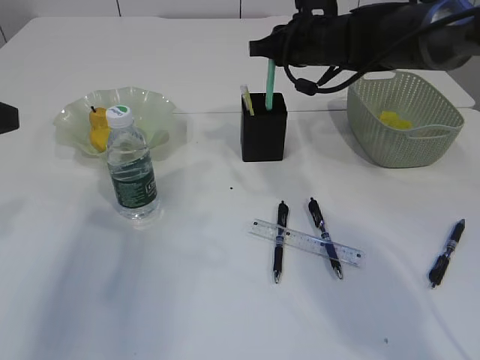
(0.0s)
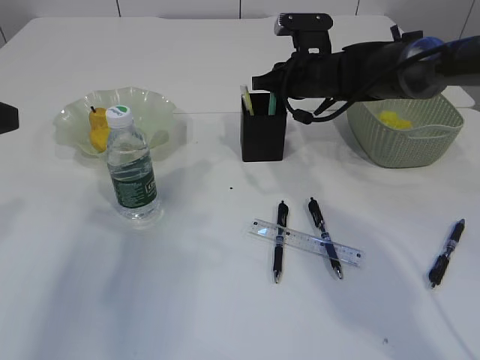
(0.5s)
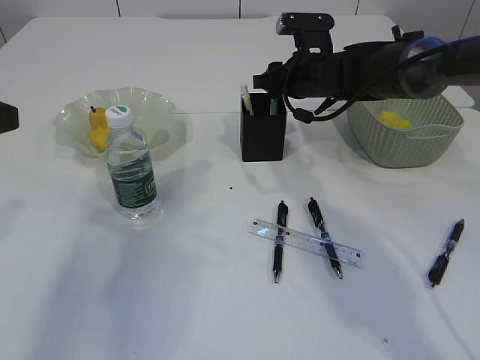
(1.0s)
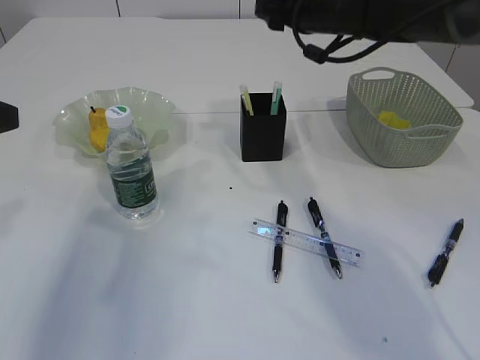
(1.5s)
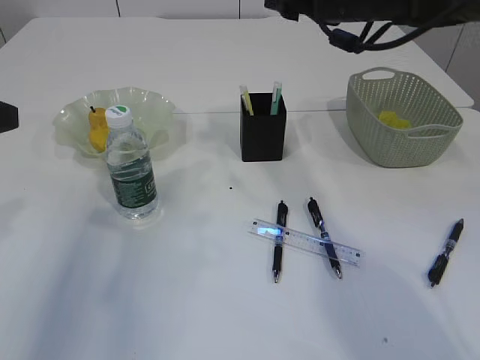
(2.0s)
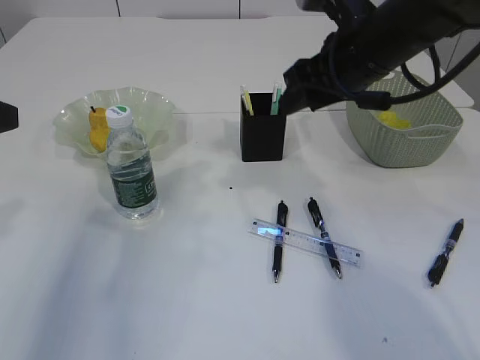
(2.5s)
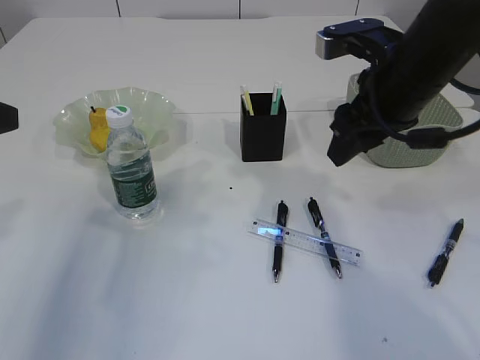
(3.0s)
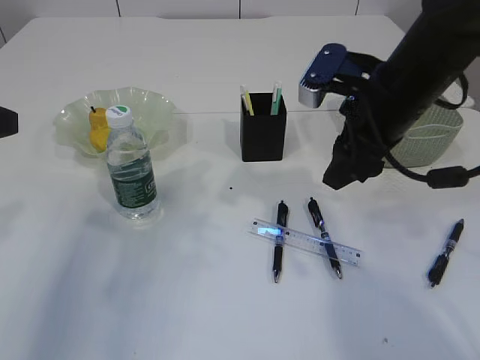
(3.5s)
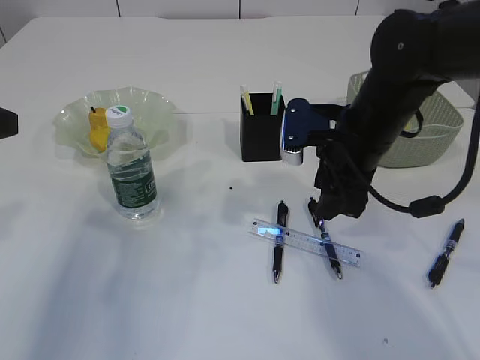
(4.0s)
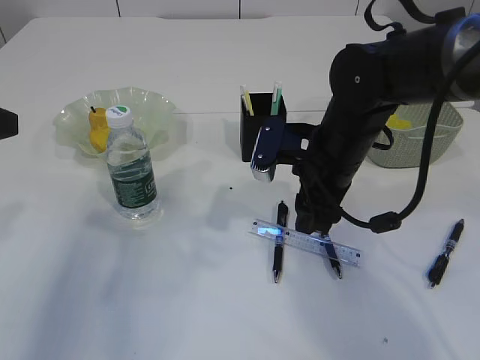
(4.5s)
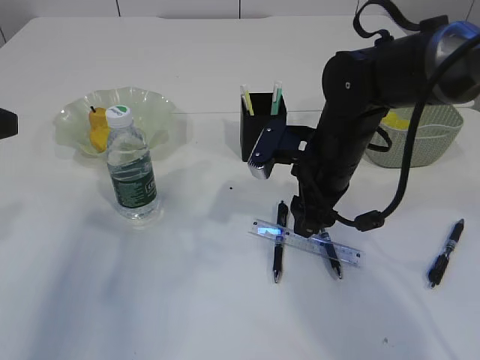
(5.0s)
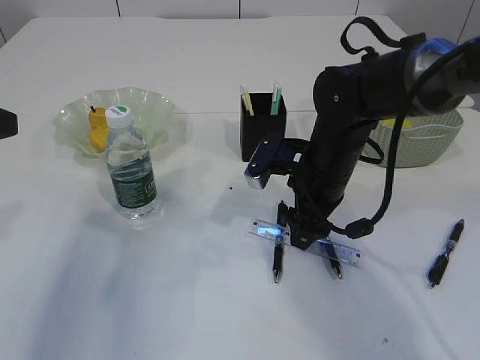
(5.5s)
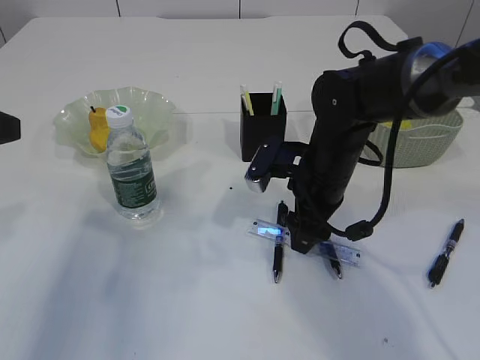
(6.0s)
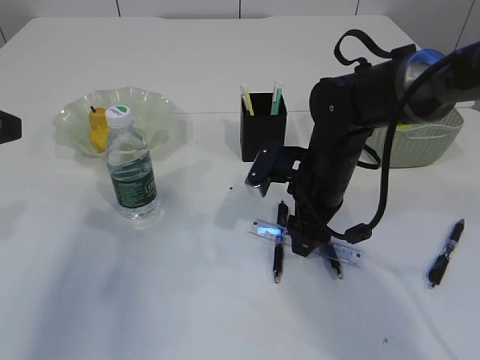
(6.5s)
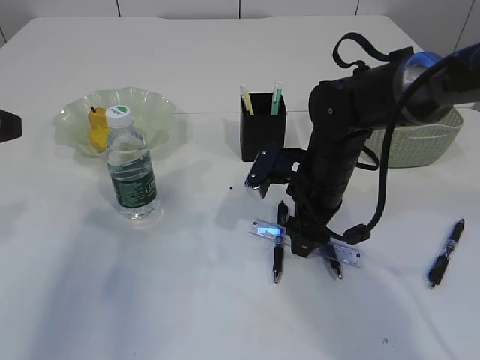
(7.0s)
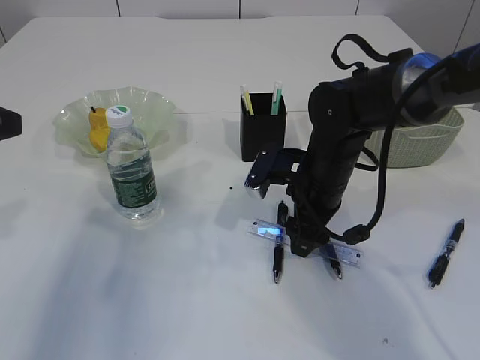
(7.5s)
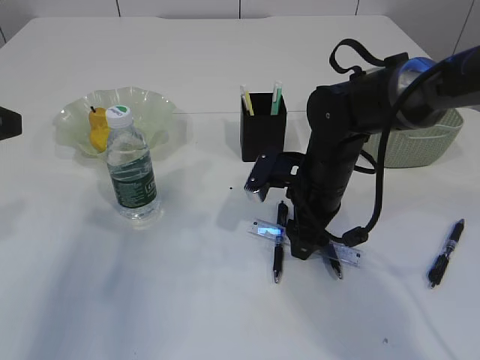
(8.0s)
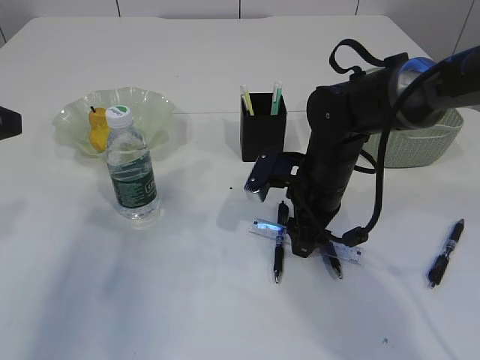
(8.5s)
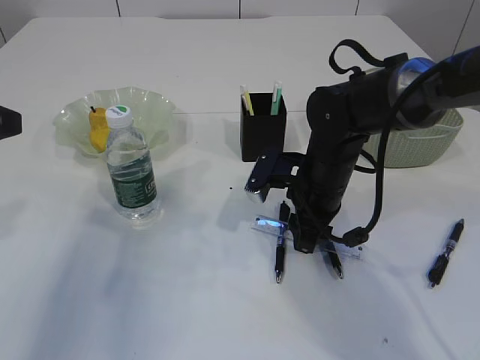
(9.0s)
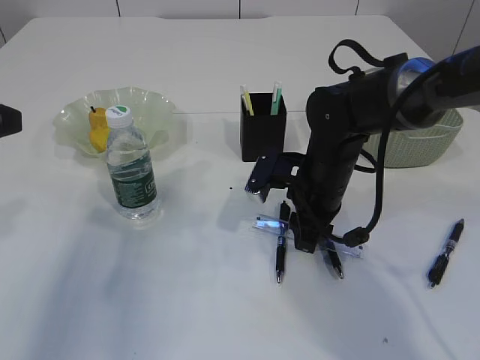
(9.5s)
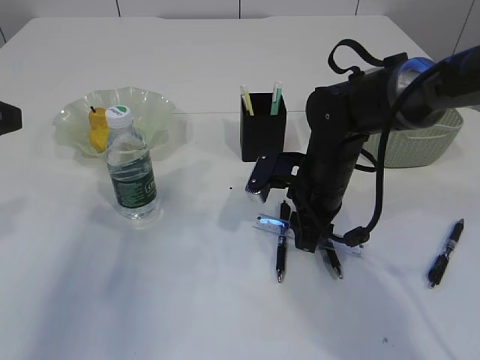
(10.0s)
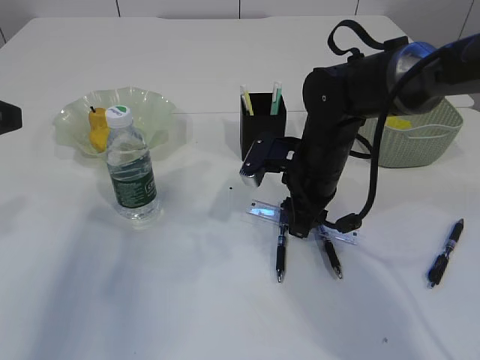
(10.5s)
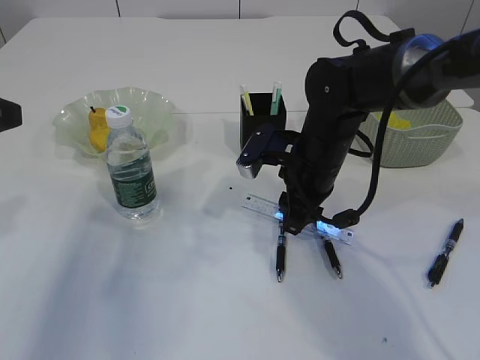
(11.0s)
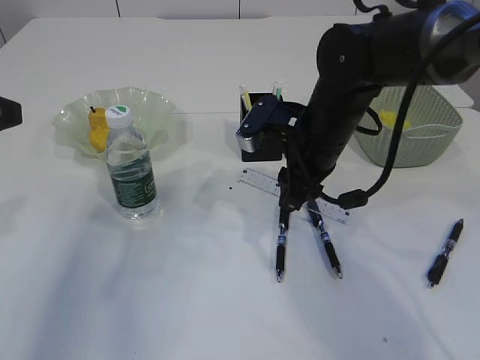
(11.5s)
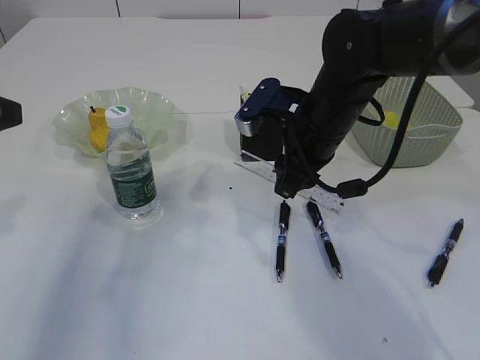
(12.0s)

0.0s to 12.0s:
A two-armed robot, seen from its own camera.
Step, 1.5s to 10.5s: pick up the ruler.
0.0s to 2.0s: The right gripper moves upward and backward, about 10 cm, and opens.
2.0s to 4.0s: The right gripper travels downward and backward by approximately 15 cm.
4.0s to 6.0s: The right gripper goes about 5 cm downward.
6.0s to 8.0s: The grippers make only small movements.
8.0s to 10.0s: The right gripper closes up.
10.0s to 12.0s: The right gripper heads upward, covering some 10 cm.

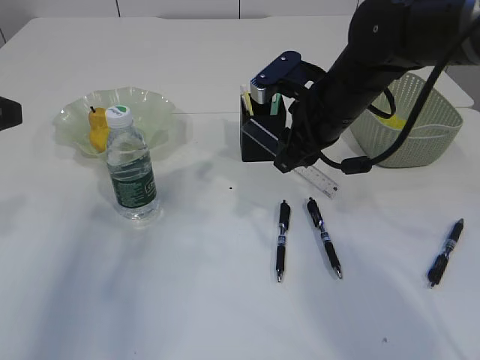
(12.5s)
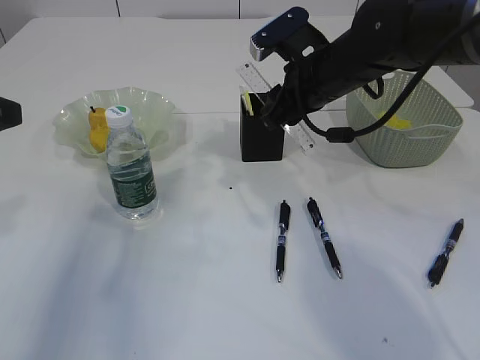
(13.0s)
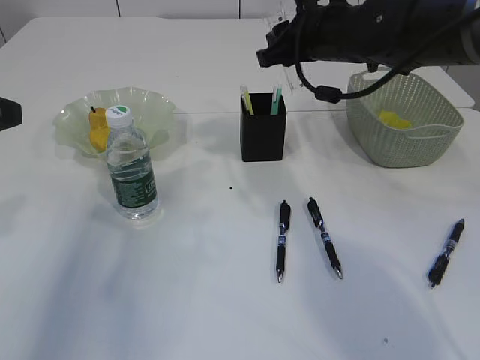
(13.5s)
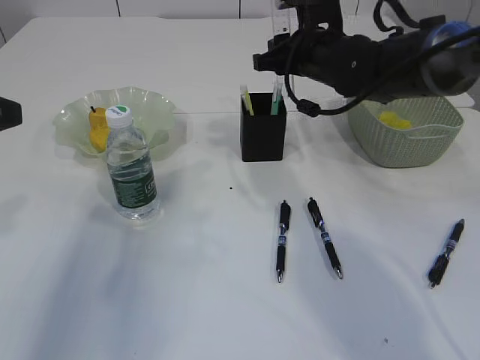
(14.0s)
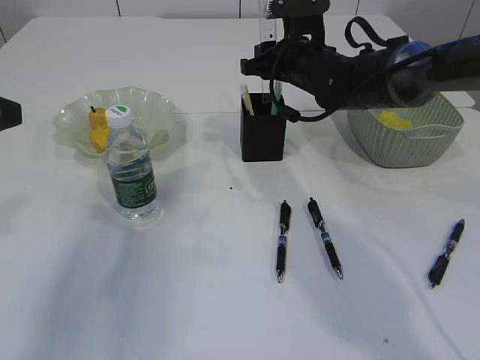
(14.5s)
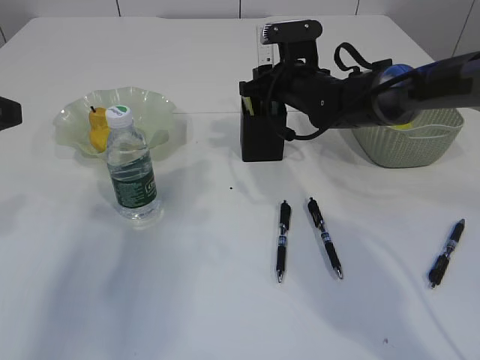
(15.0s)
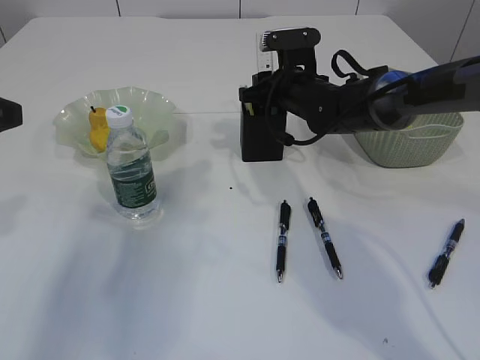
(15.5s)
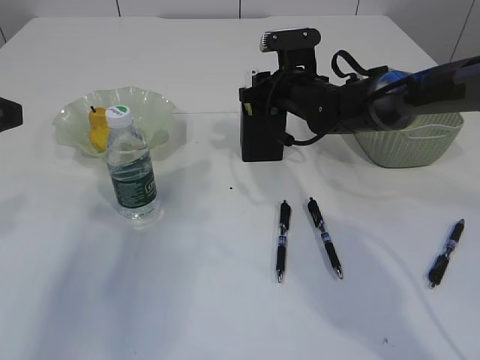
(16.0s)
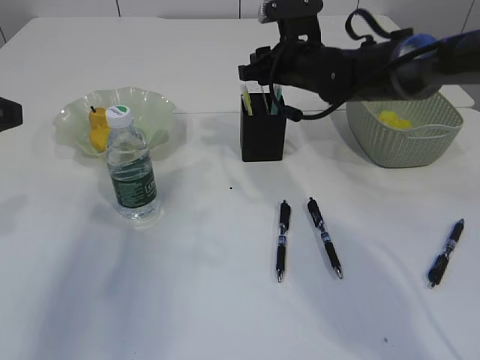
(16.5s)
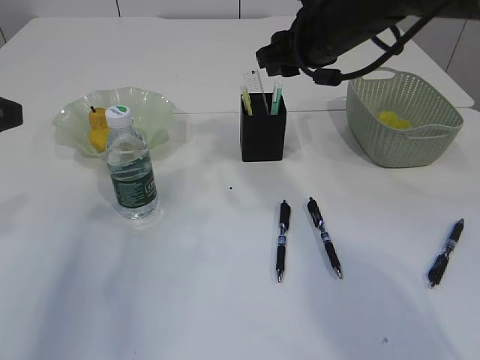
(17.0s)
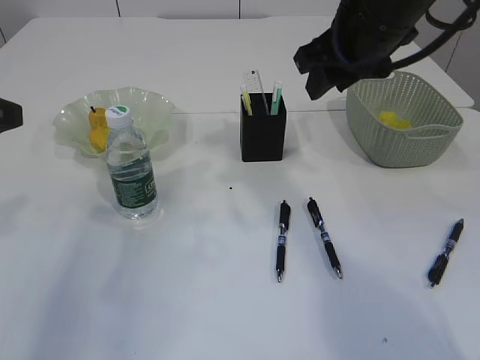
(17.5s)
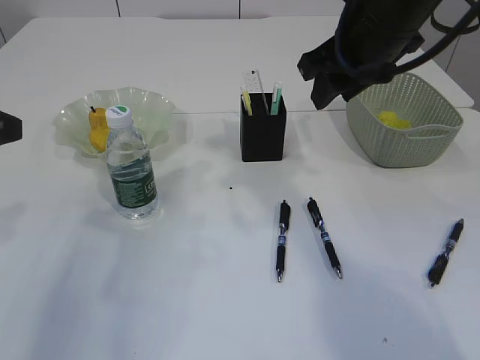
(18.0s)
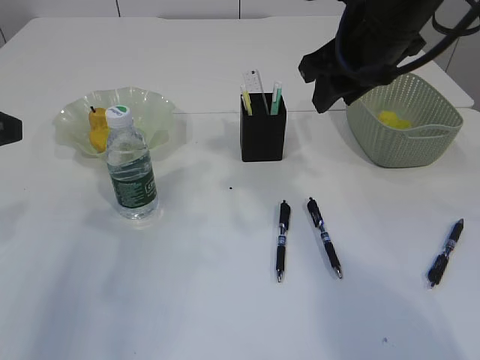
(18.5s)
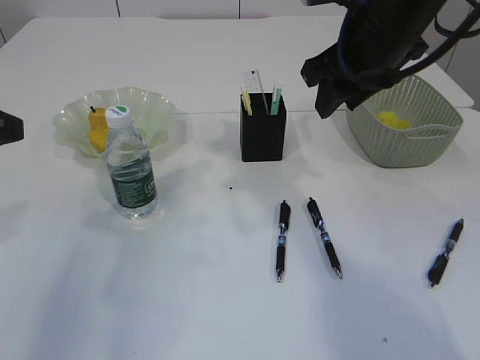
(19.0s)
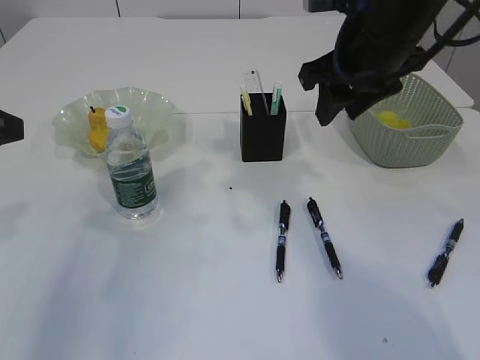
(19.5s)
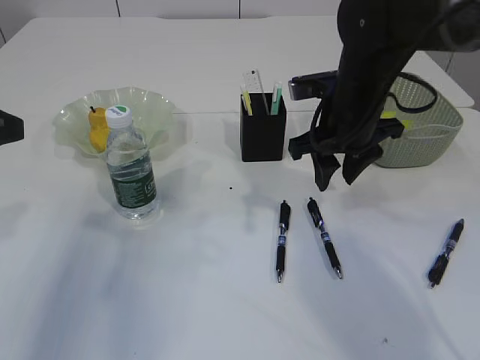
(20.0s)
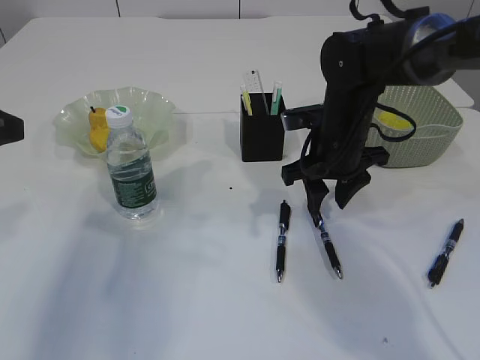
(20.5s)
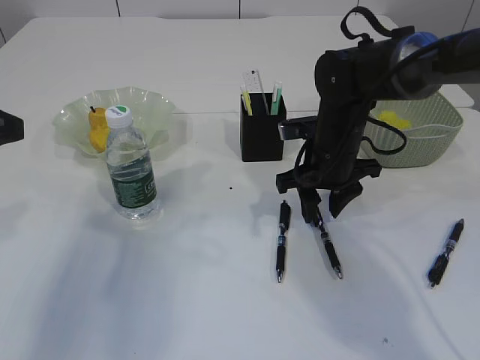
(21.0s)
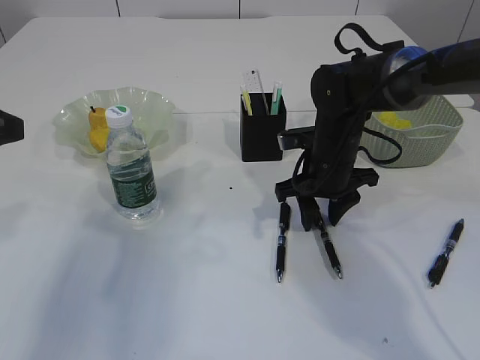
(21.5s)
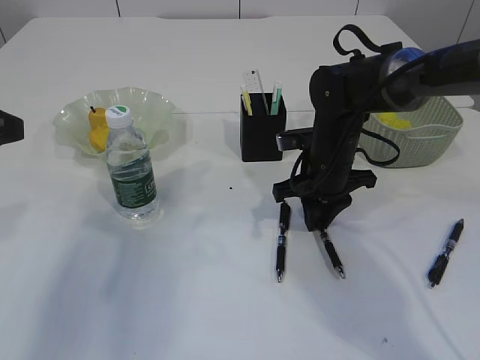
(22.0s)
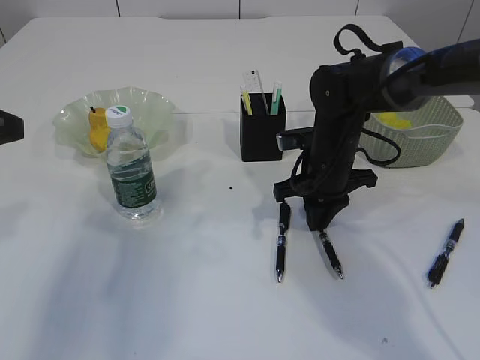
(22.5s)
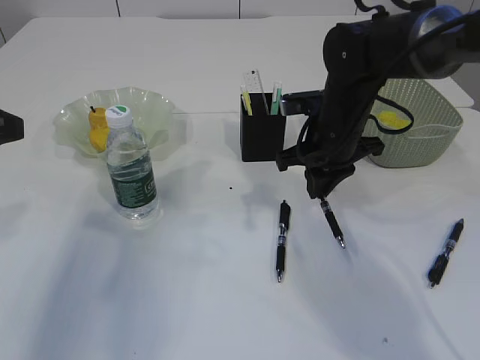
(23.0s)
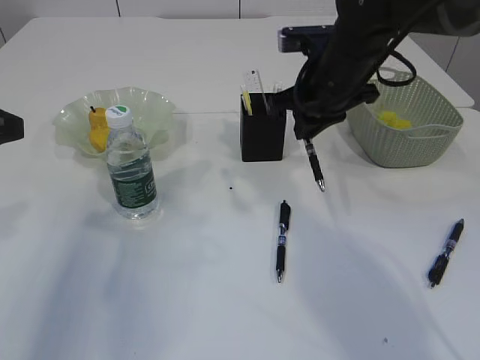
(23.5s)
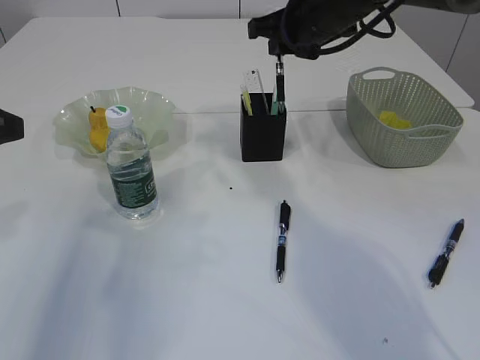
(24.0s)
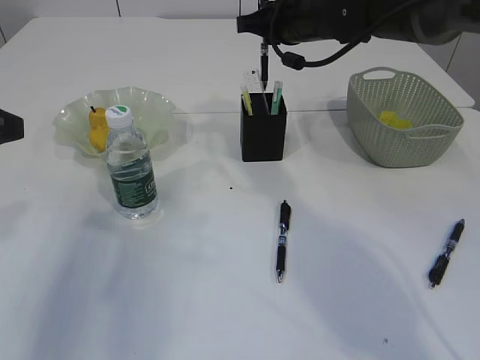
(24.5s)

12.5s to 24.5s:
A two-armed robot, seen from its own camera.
Step, 12.5s to 16.5s: Place the ruler into the pen holder.
Step, 17.0s to 22.5s: Pick up the pen with right arm.
12.5s to 14.5s: The right gripper moves forward, some 10 cm.
14.5s to 16.5s: The grippers move only a little.
16.5s to 18.5s: The right gripper shifts roughly 15 cm backward and upward.
18.5s to 20.5s: The right gripper shifts some 15 cm downward.
20.5s to 22.5s: The right gripper closes its fingers.
22.5s to 24.5s: The right gripper shifts approximately 15 cm upward and forward.

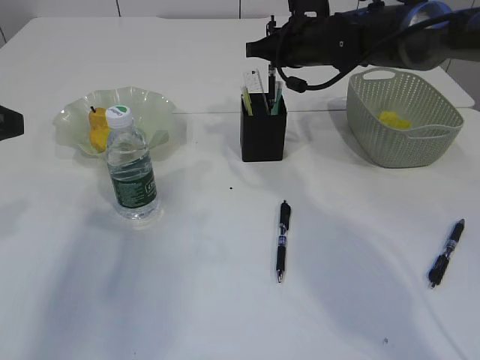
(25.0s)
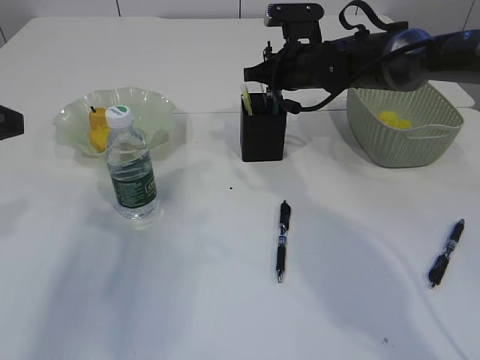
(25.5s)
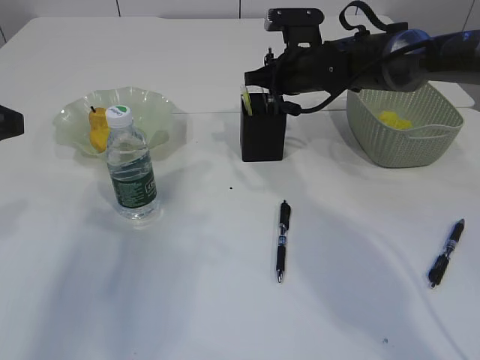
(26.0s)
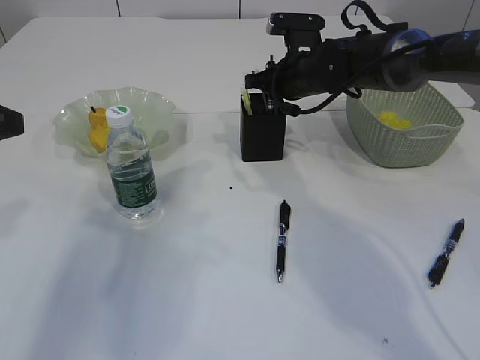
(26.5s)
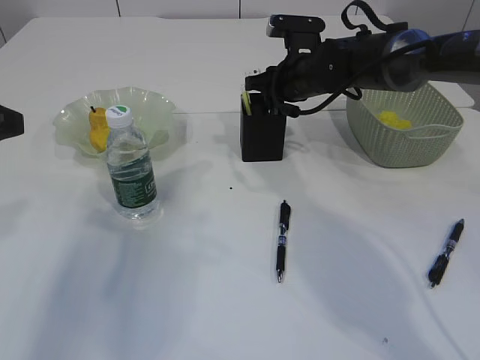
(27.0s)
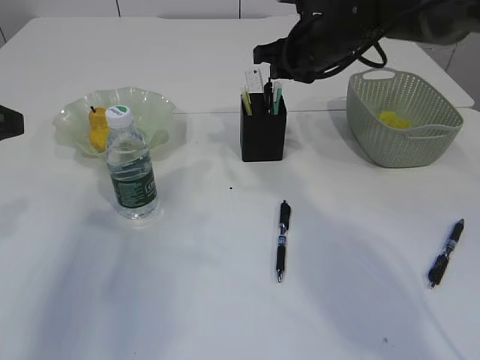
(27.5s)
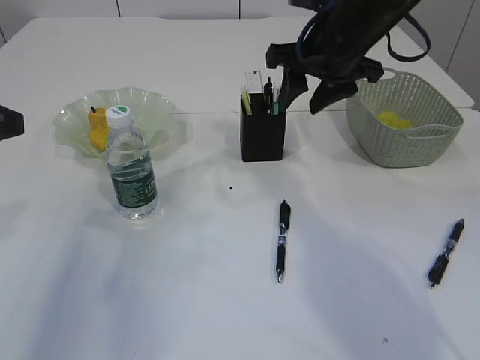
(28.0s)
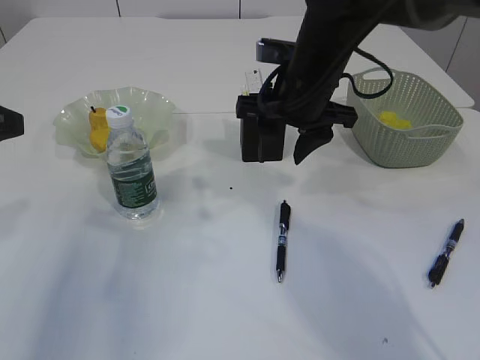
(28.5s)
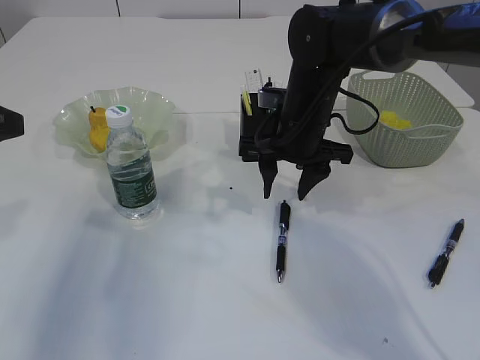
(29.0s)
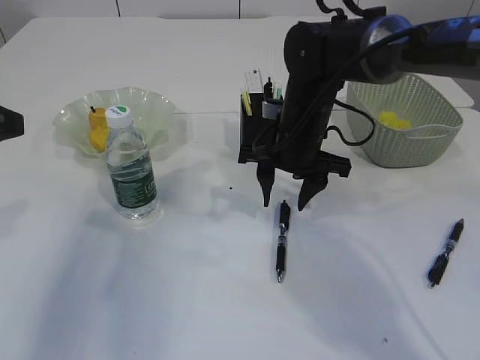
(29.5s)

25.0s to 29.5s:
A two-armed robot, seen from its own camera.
Step, 25.0s to 27.5s: Place the pen into the pen holder.
25.0s to 27.0s: The grippers stay close to where they were, moving slightly.
27.0s to 29.5s: The right gripper shifts about 10 cm backward, reaches about 10 cm upward, then returns, and opens its fingers.
